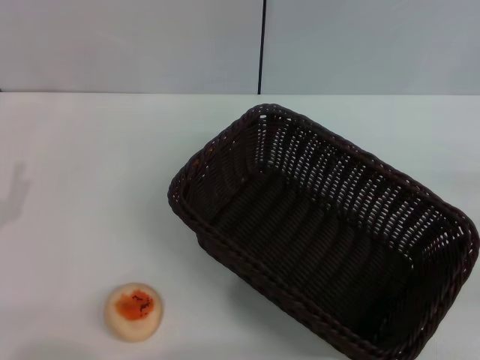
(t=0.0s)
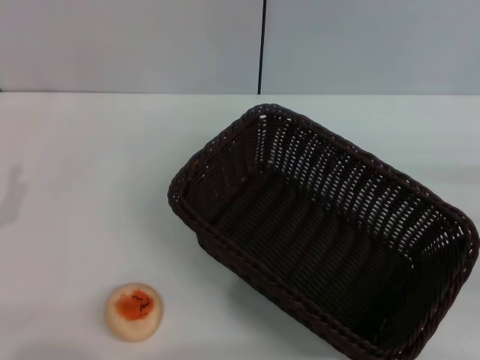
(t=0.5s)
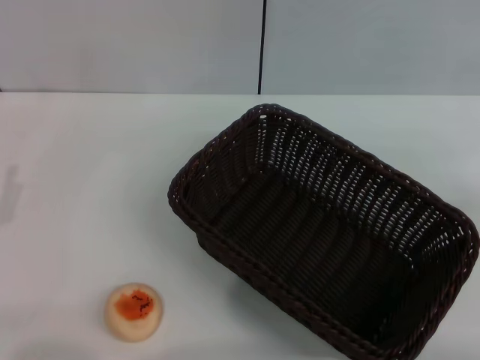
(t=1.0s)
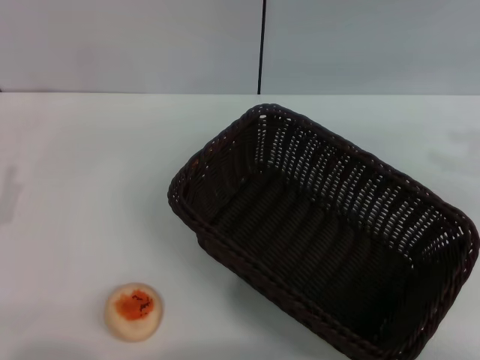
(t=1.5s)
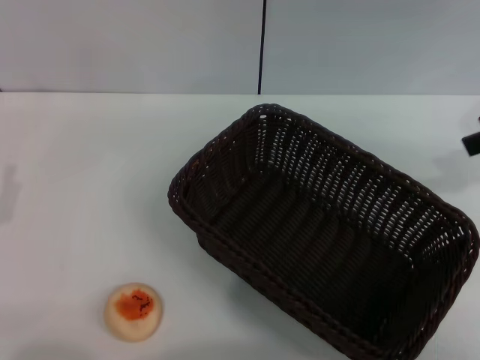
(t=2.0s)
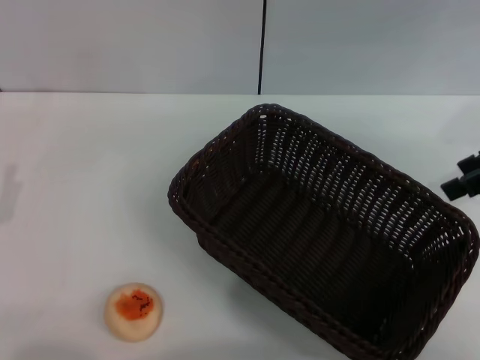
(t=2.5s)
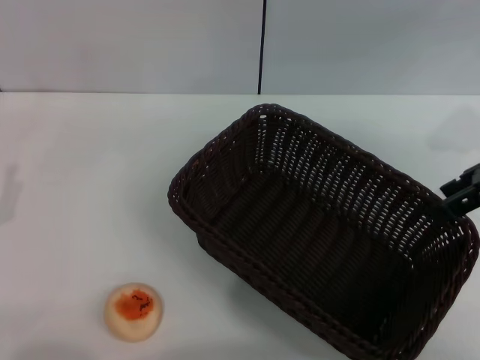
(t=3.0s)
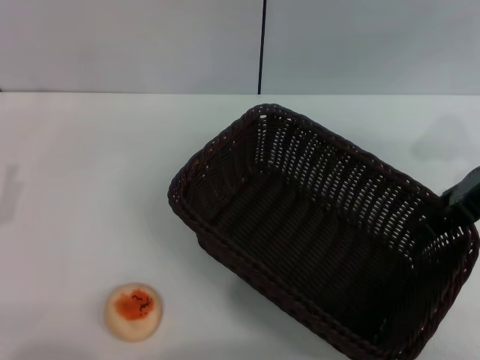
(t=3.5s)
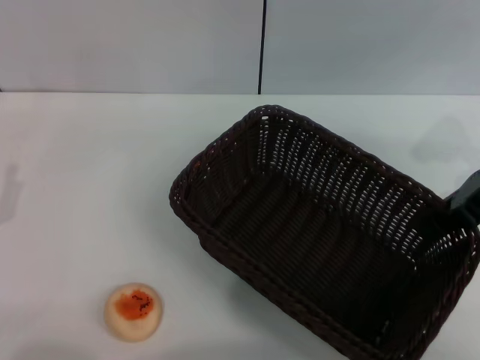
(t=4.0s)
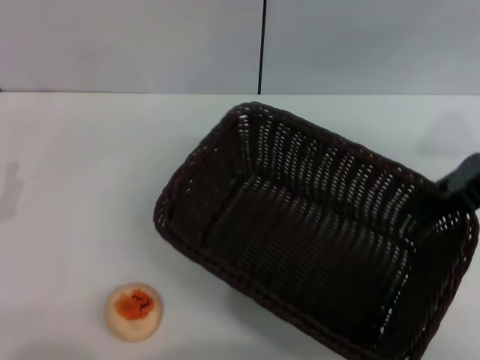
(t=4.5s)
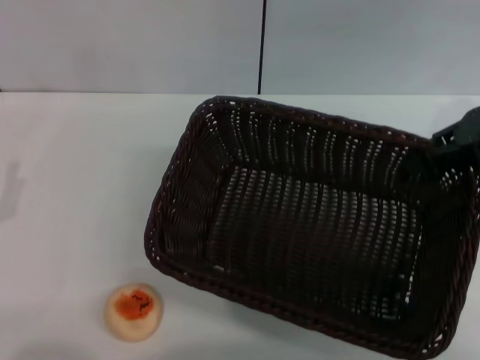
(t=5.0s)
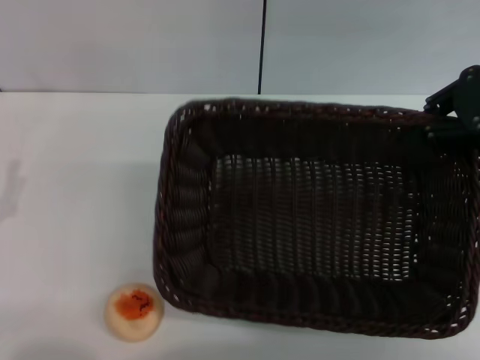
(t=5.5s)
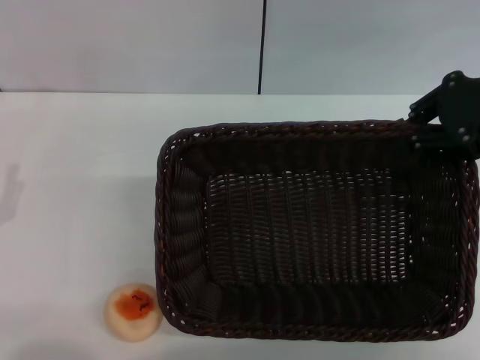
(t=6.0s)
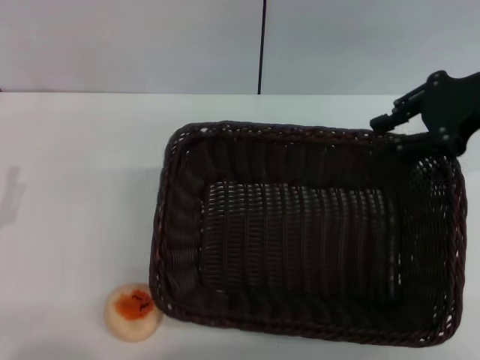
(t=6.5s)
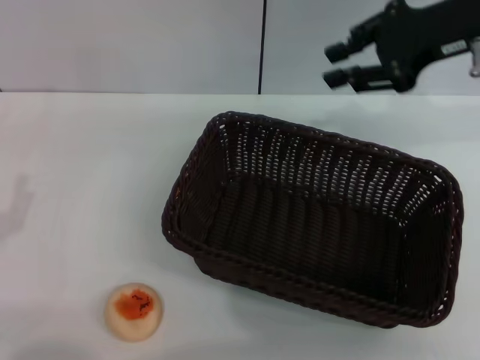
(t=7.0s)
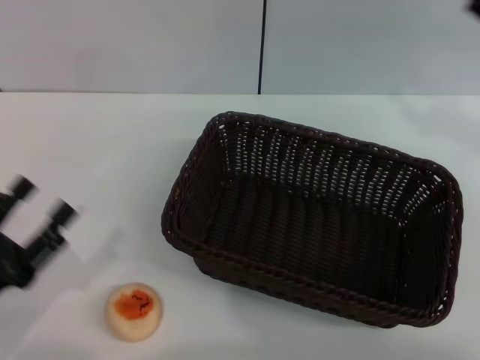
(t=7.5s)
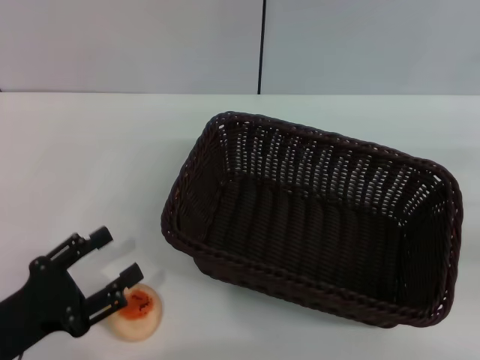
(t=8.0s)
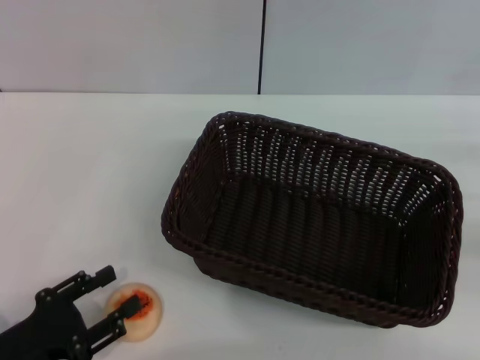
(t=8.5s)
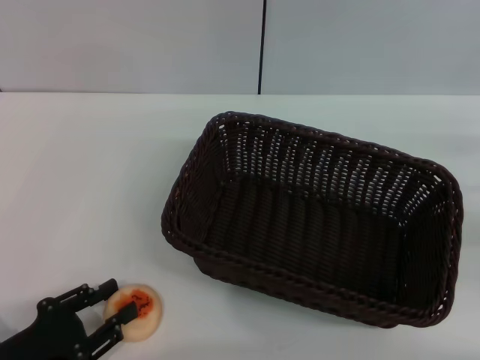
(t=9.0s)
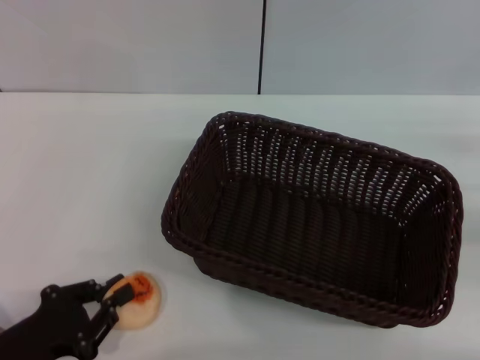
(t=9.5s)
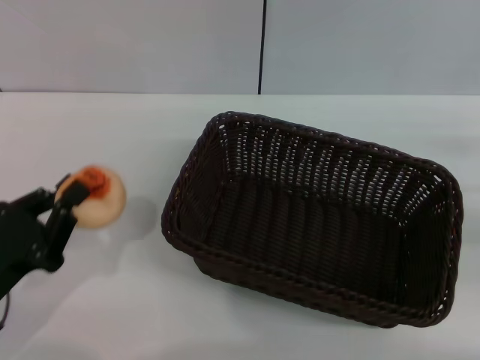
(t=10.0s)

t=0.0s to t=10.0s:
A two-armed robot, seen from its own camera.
Step, t=0.0s to t=6.5s: Move the basket to the center of view with the right gripper.
Step, t=7.0s to t=9.5s: Pick up the egg yolk pastry with the left gripper.
t=0.0s to t=2.0s: The right gripper is displaced upward and forward by approximately 20 cm, and opens its fingers.
t=2.0s to t=4.0s: The right gripper goes about 10 cm downward, and closes.
t=4.0s to t=6.0s: The right gripper heads upward, covering roughly 5 cm.
t=6.0s to t=8.0s: The right gripper goes some 20 cm to the right, downward and backward.
t=8.0s to t=10.0s: The left gripper closes.

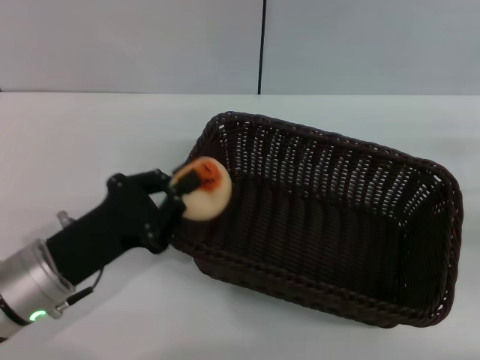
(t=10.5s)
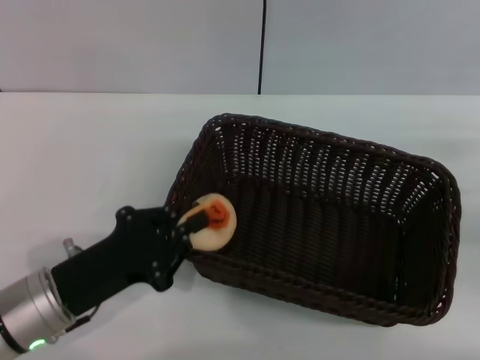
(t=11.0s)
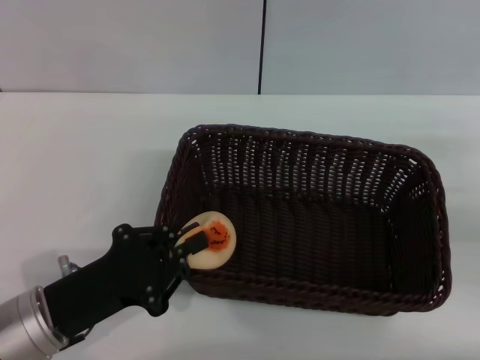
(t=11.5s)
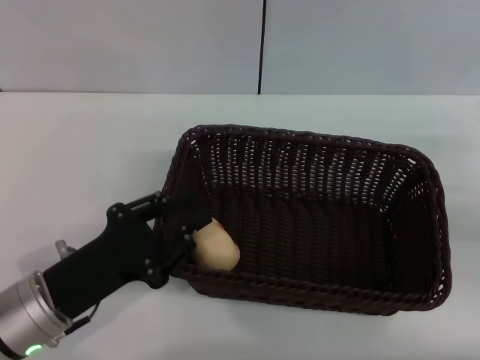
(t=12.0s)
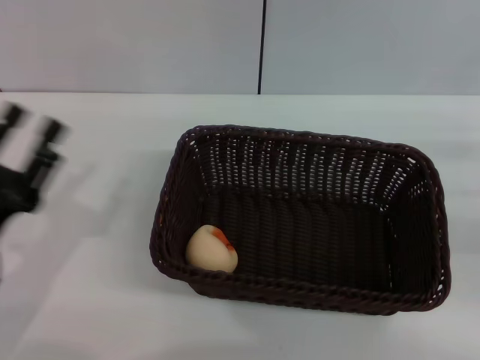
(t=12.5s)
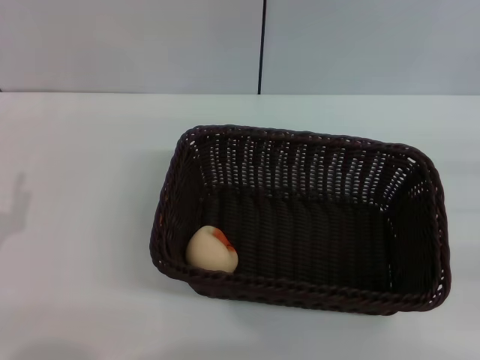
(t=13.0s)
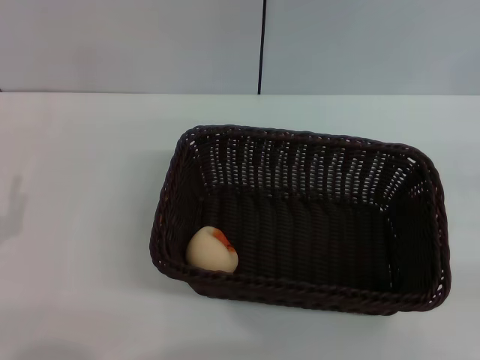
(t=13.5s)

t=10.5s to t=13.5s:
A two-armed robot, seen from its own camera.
Step, t=10.5s to t=12.0s: Place the egg yolk pastry into the basket with the left gripper.
t=10.5s to t=12.0s: The grippers move only a little.
t=12.0s to t=13.5s: The right gripper is displaced backward and to the right by roughly 10 cm. The left gripper heads to the left, covering about 10 cm, and opens its fingers.
